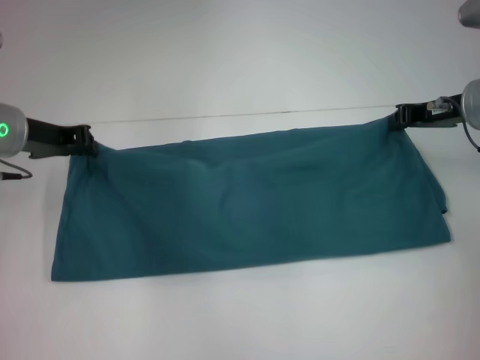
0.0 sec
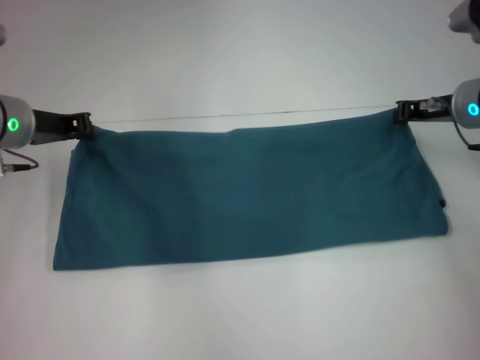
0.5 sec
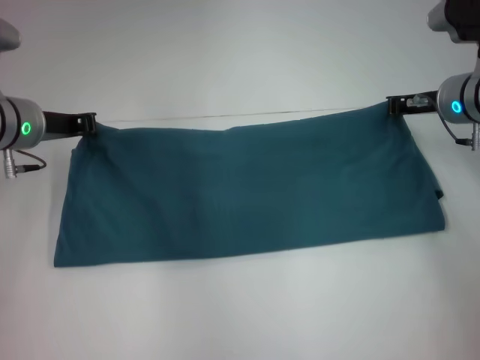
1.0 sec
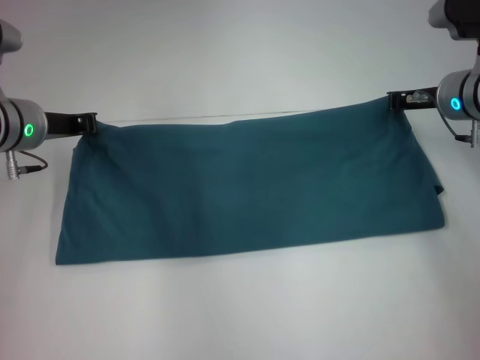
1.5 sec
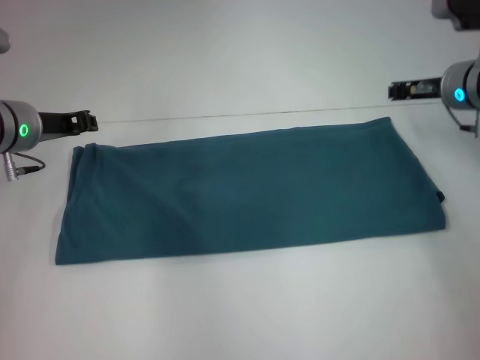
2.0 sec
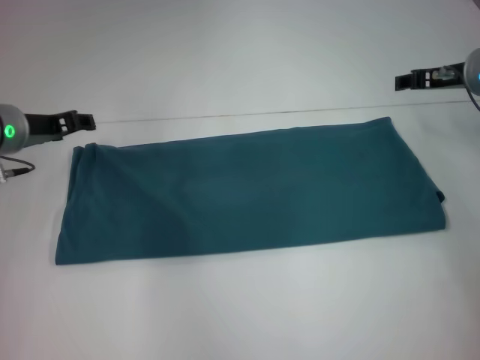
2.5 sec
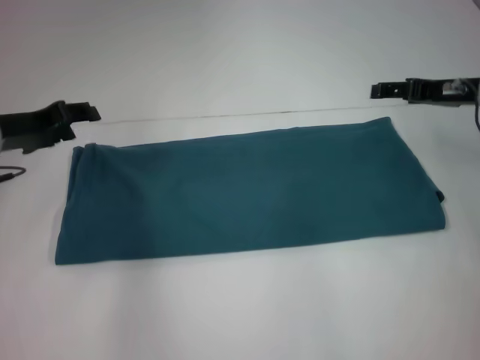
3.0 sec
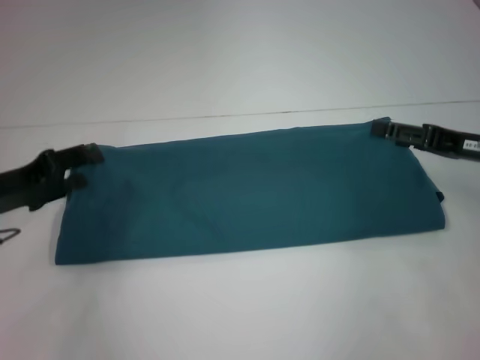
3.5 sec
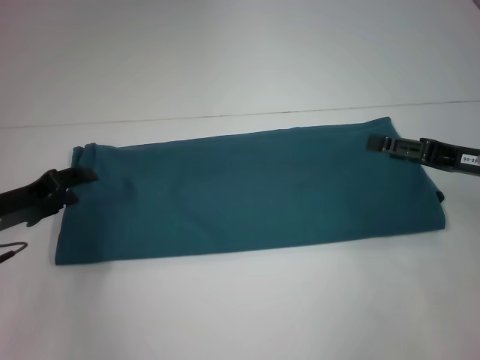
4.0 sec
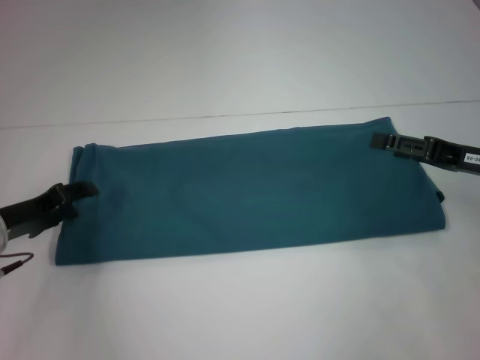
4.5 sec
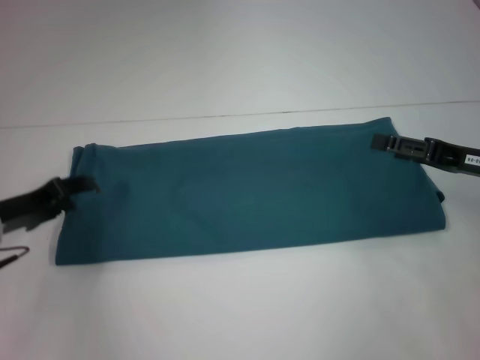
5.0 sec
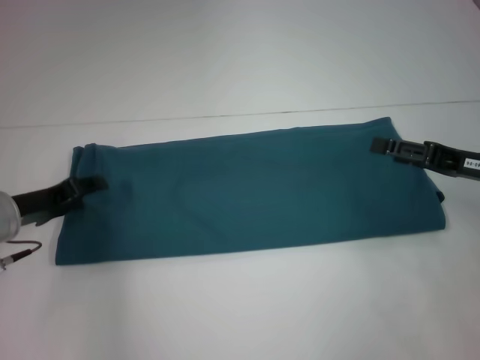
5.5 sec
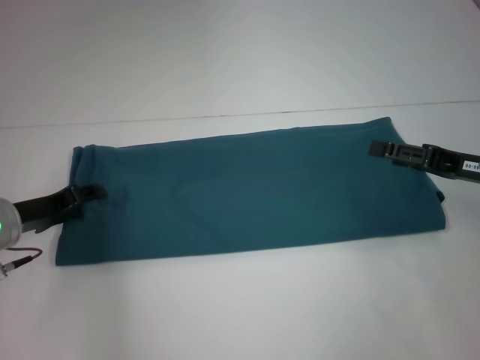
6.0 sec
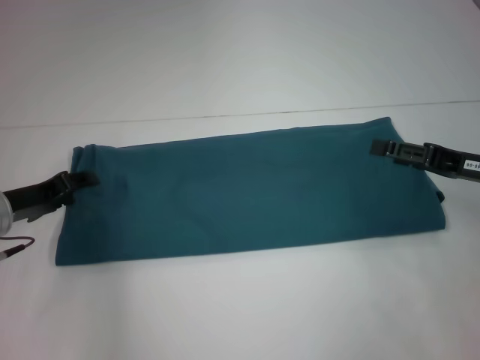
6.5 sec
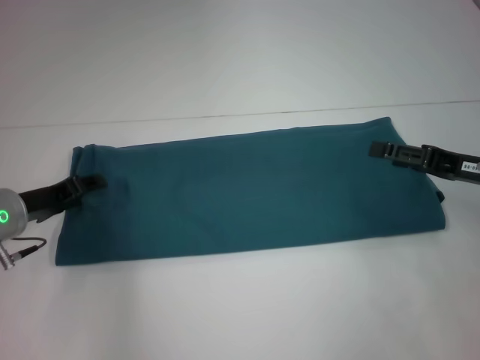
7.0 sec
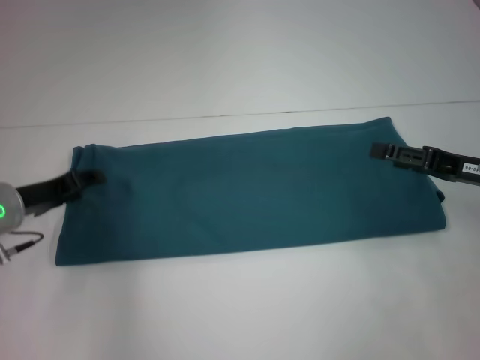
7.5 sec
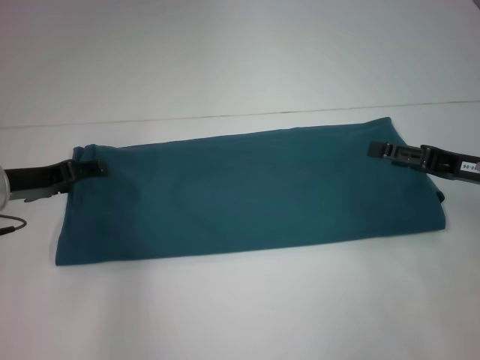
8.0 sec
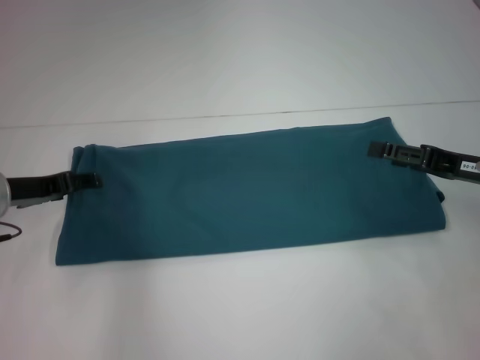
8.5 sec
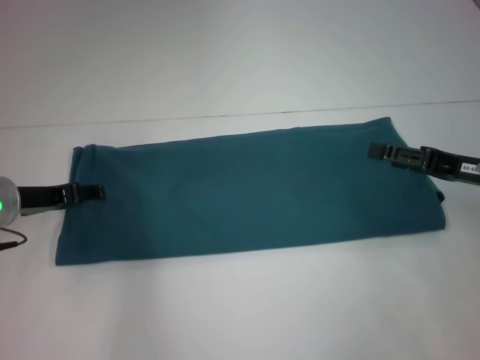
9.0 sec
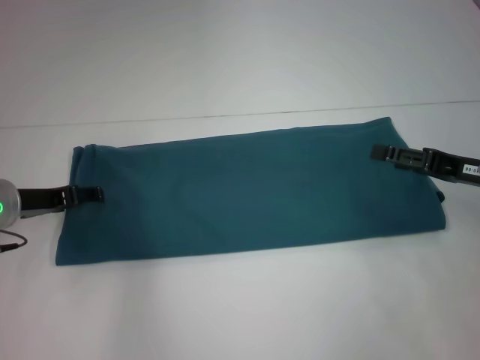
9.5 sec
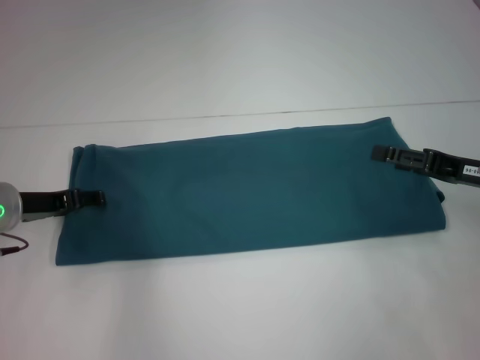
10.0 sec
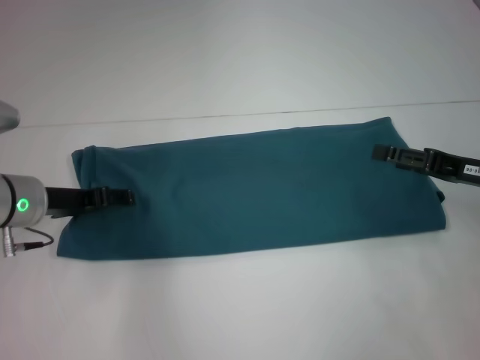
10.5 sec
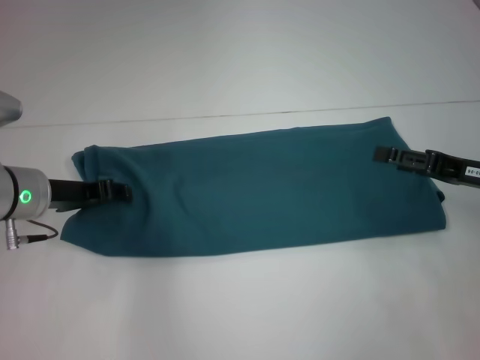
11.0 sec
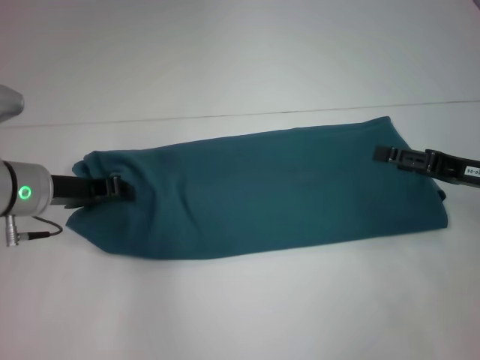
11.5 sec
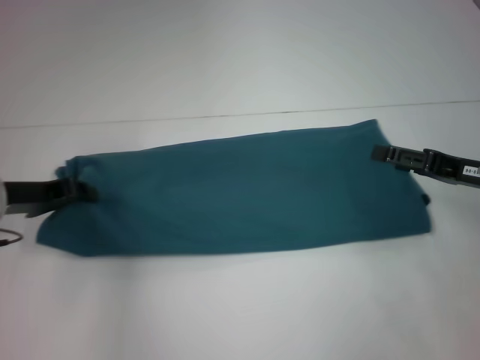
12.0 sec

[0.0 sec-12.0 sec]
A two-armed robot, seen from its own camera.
0.0 sec to 2.0 sec: There are only small adjustments of the grippers.
2.0 sec to 4.0 sec: The right gripper is displaced backward and to the right by approximately 15 cm, and opens its fingers, while the left gripper heads backward, downward and to the left, covering approximately 10 cm, and opens up.
4.0 sec to 6.0 sec: The grippers stay close to where they were, moving slightly.
6.0 sec to 10.0 sec: There are only small adjustments of the grippers.
10.0 sec to 12.0 sec: The left gripper closes.

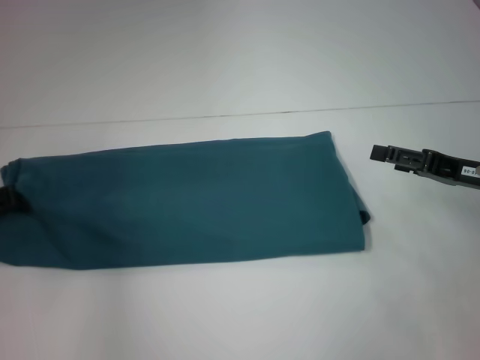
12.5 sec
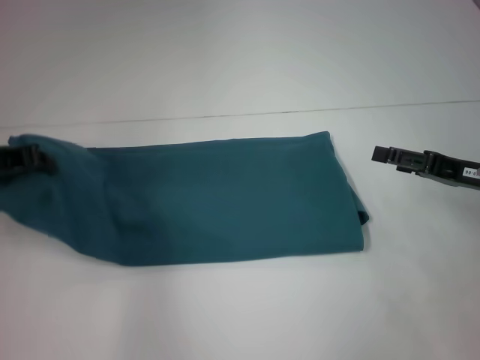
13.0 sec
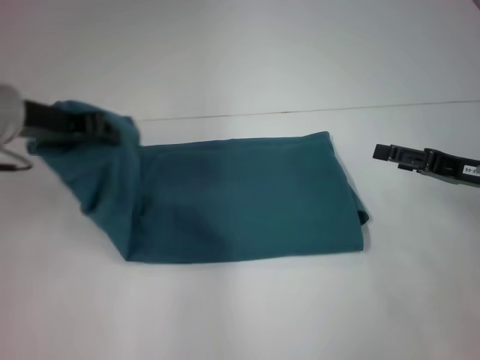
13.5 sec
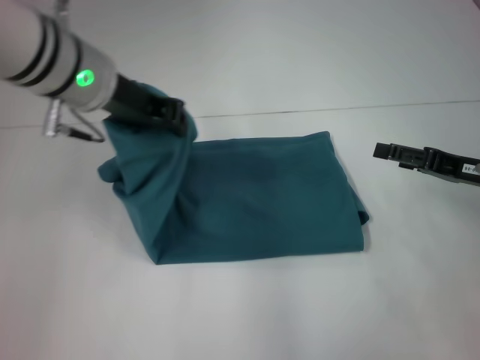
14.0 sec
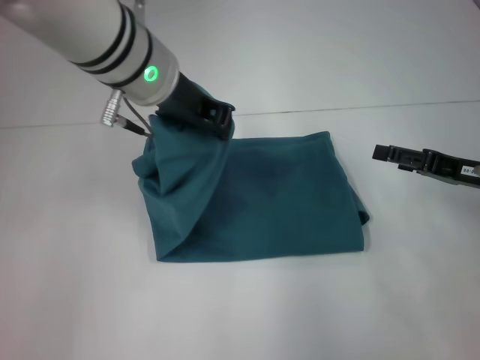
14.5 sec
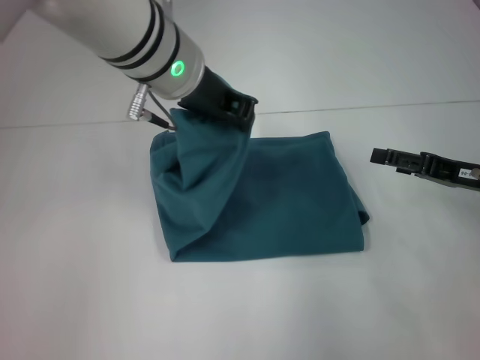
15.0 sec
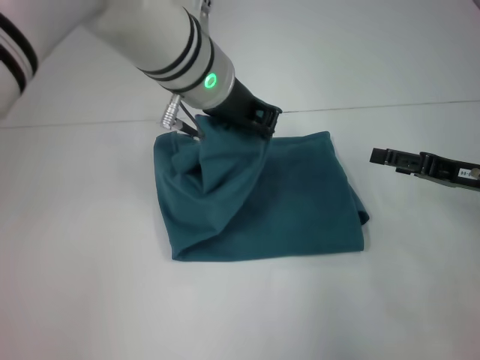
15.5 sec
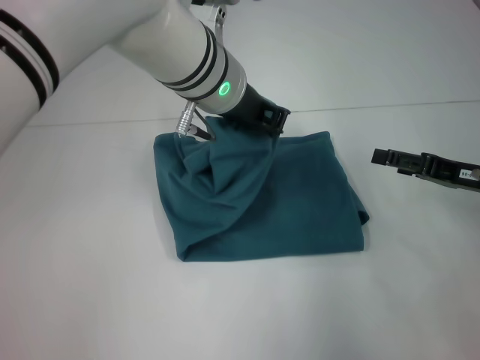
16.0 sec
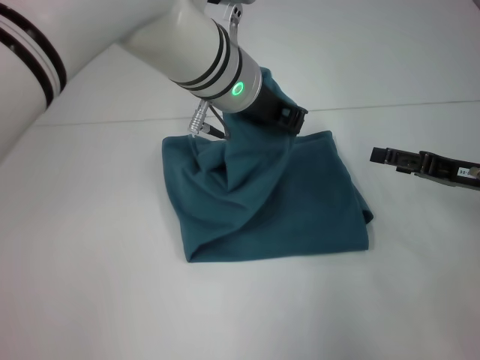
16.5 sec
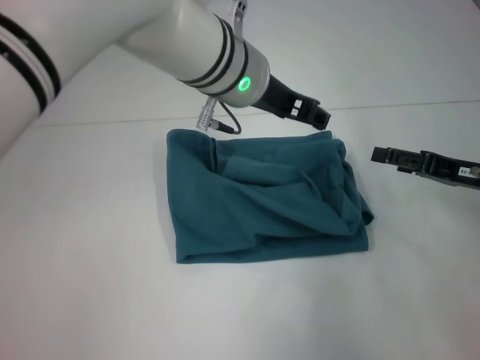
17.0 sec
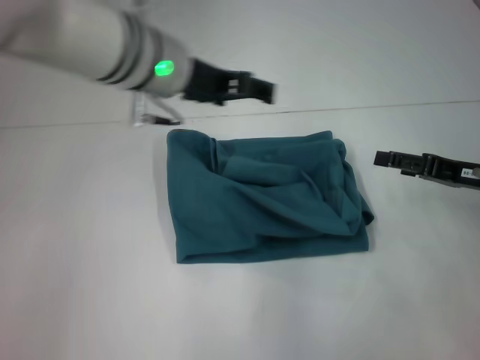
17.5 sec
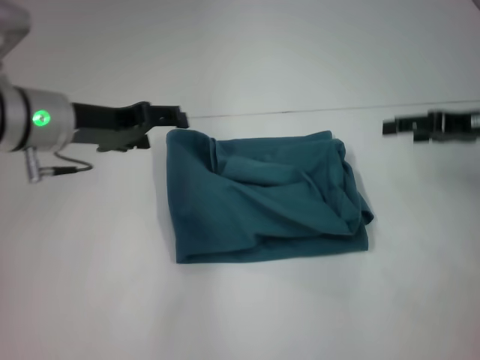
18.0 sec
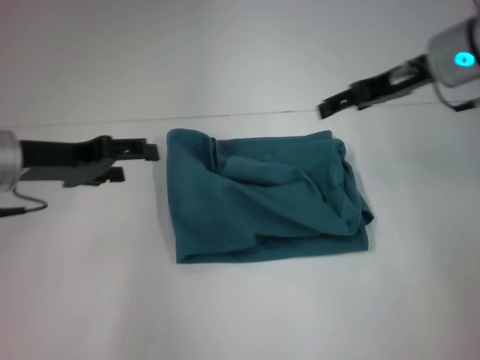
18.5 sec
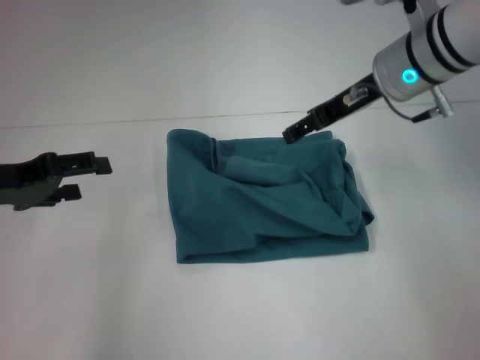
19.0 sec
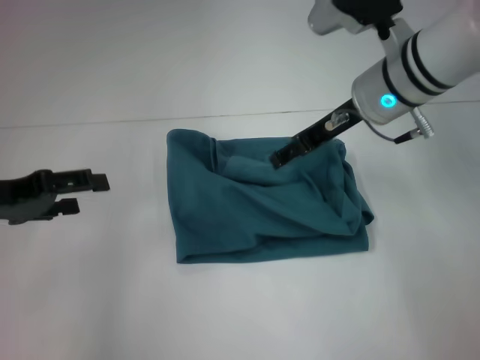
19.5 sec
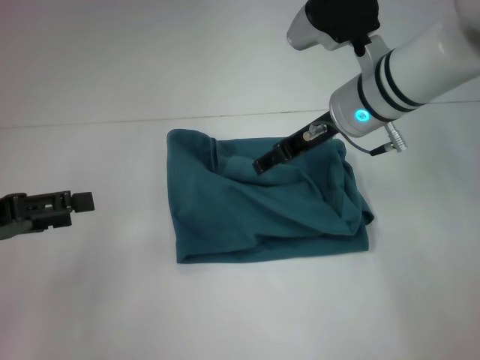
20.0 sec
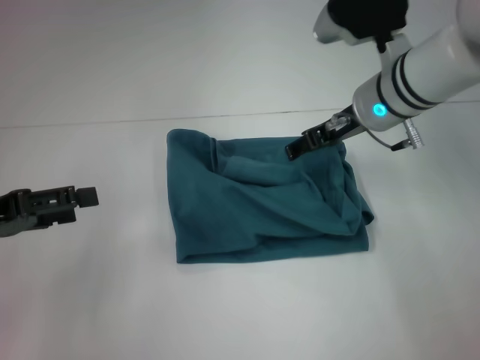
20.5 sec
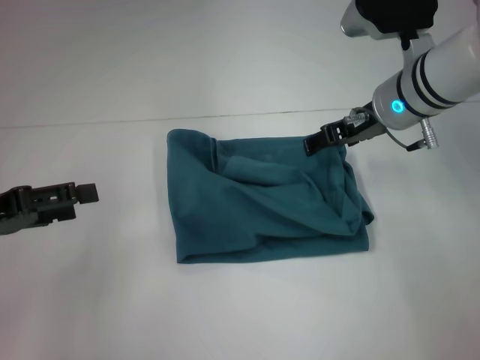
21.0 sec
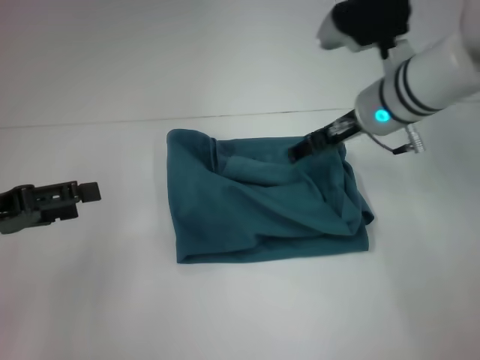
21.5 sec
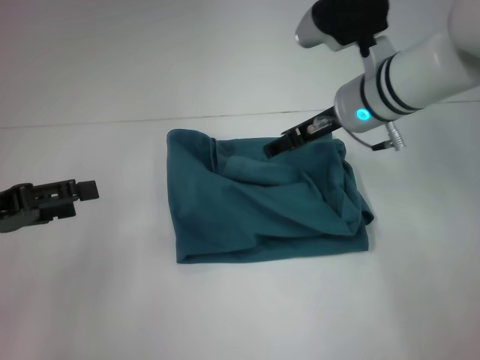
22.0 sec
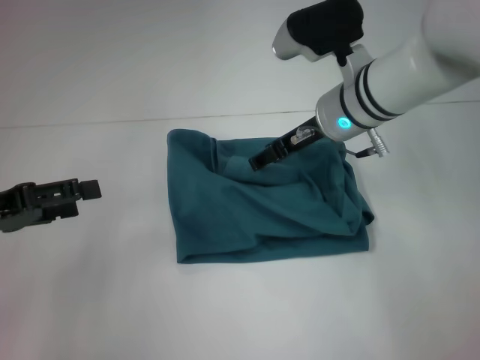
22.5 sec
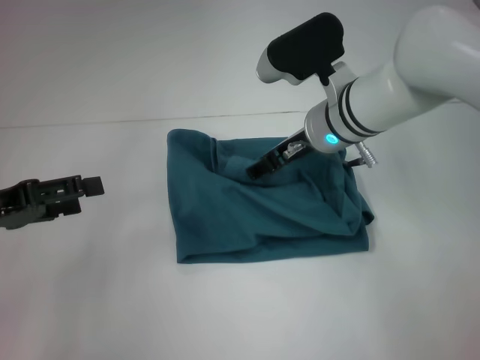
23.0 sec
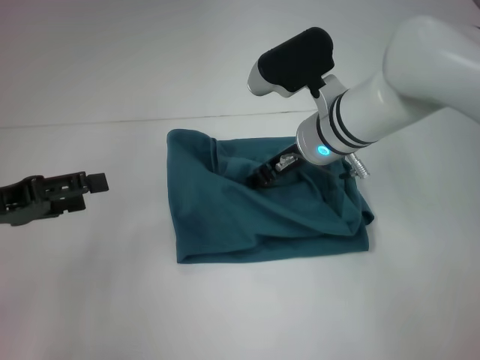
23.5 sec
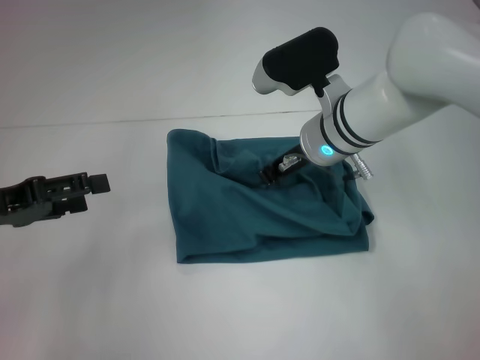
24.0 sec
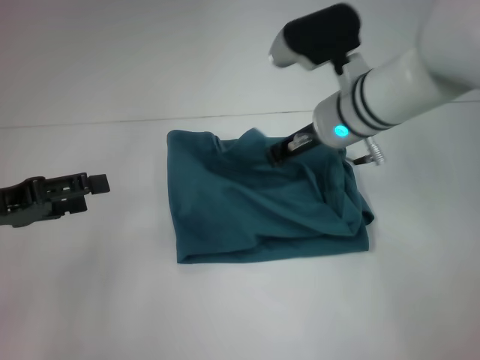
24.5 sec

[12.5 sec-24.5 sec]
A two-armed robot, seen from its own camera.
Step, 12.5 sec to 16.5 sec: Fold the clothes to the left.
12.5 sec to 14.5 sec: The left gripper shifts about 30 cm to the right and upward.
14.5 sec to 16.5 sec: The left gripper travels to the right by roughly 5 cm.
16.5 sec to 18.5 sec: The left gripper shifts about 25 cm to the left, and opens its fingers. Meanwhile the right gripper travels upward, forward and to the left by approximately 20 cm.
18.5 sec to 20.5 sec: The right gripper shifts some 5 cm to the left; the left gripper shifts approximately 10 cm to the left and backward.
20.5 sec to 22.5 sec: There are only small adjustments of the grippers.
22.5 sec to 24.5 sec: The right gripper closes up.

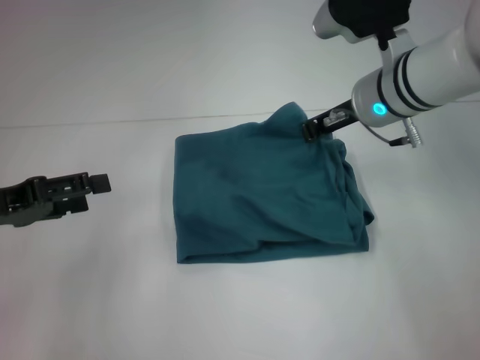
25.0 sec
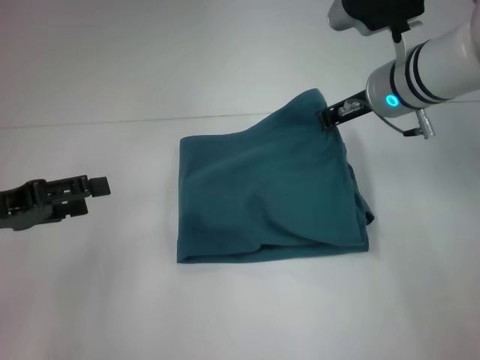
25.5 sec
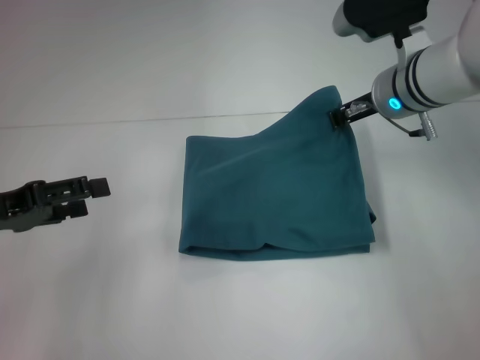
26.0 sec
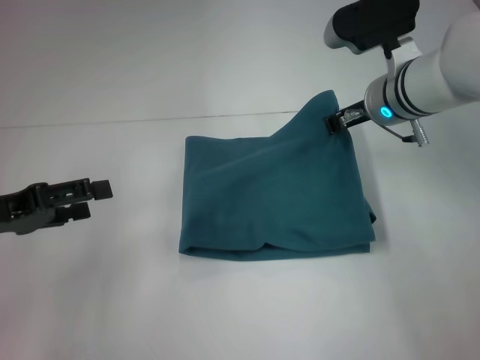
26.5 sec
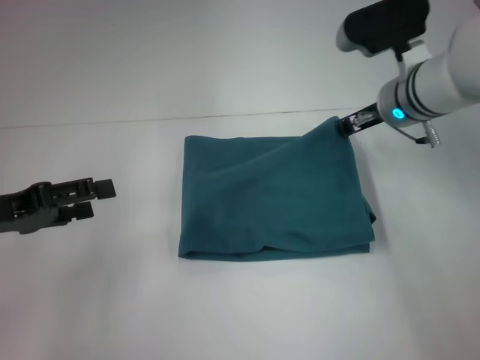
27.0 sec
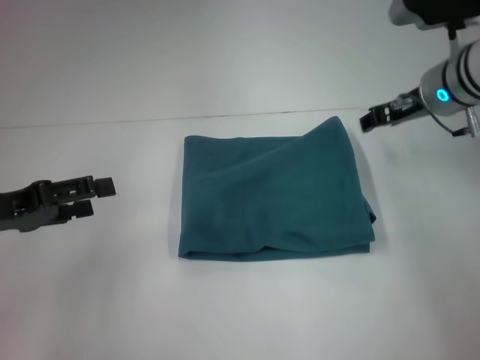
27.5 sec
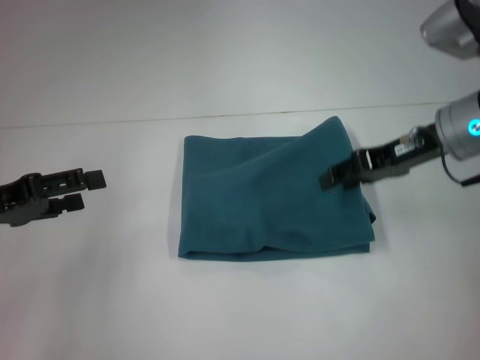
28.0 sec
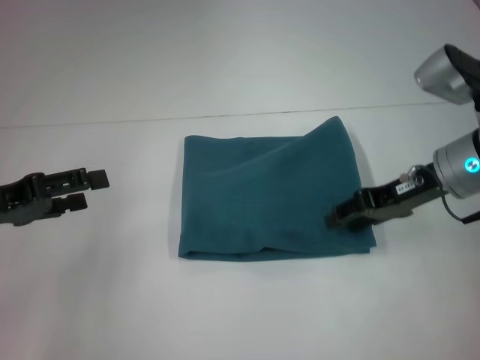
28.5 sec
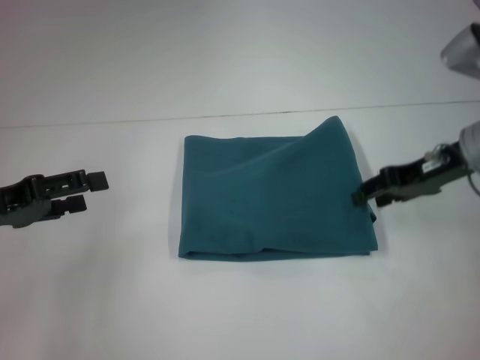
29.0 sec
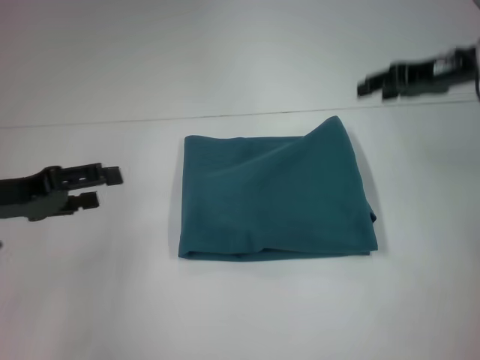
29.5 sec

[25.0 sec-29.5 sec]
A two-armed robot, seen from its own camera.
25.0 sec to 27.0 sec: There are only small adjustments of the grippers.
27.0 sec to 29.5 sec: The right gripper moves to the right and upward, some 10 cm, and opens.
